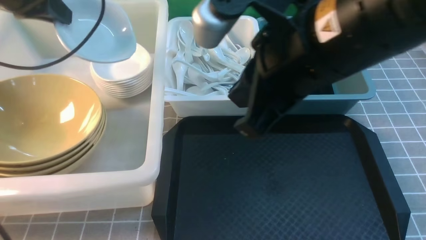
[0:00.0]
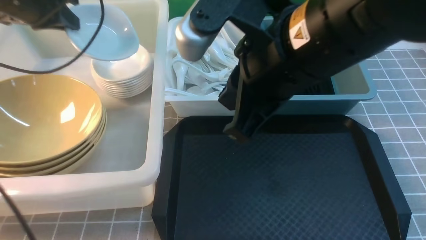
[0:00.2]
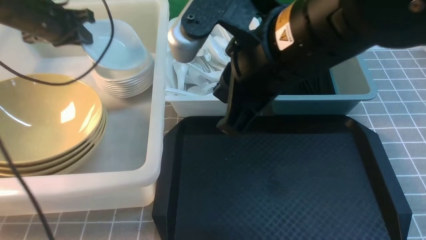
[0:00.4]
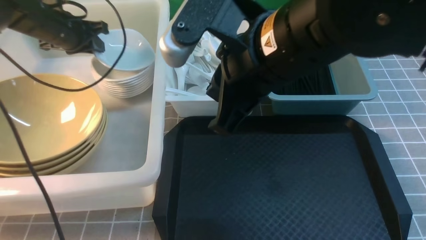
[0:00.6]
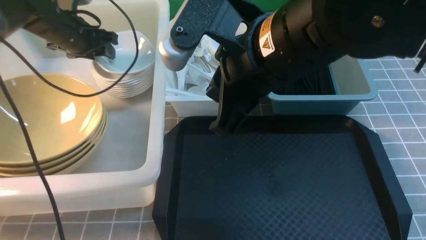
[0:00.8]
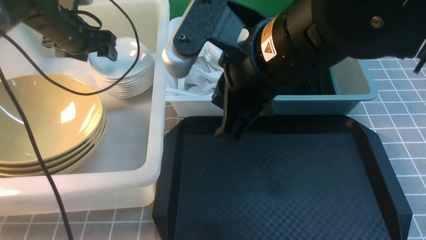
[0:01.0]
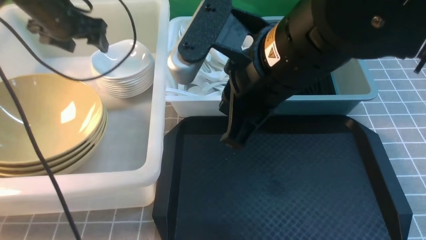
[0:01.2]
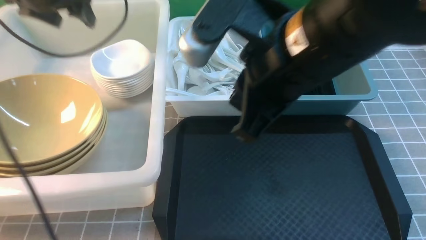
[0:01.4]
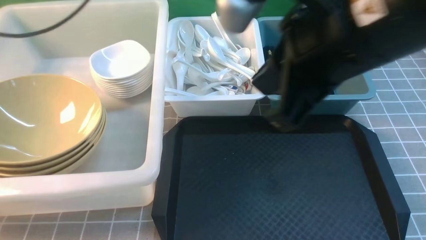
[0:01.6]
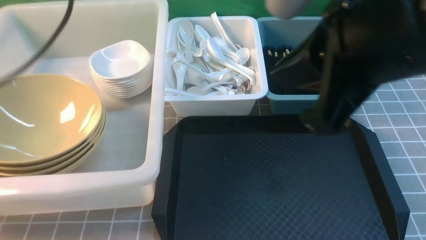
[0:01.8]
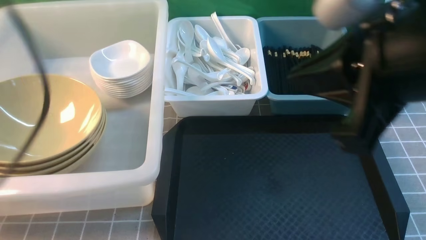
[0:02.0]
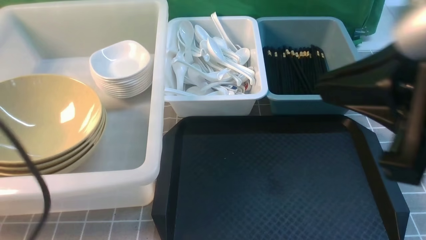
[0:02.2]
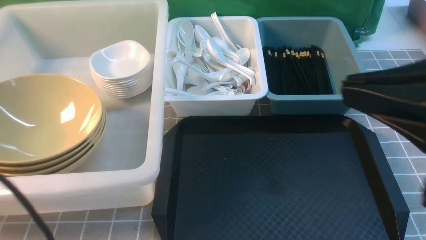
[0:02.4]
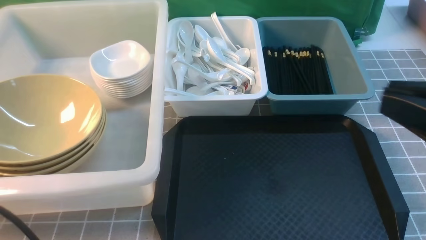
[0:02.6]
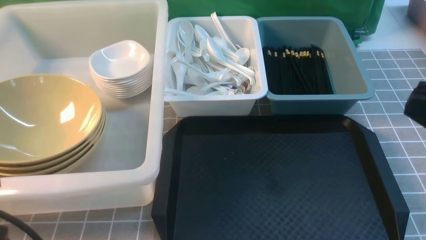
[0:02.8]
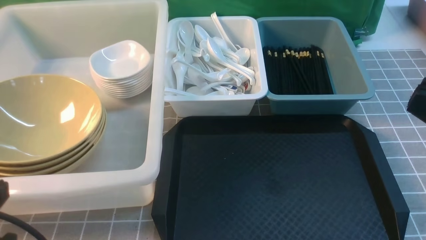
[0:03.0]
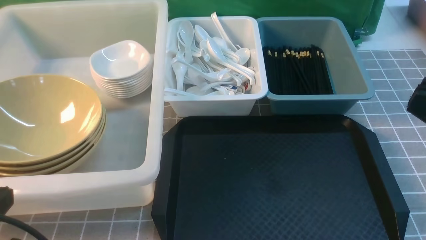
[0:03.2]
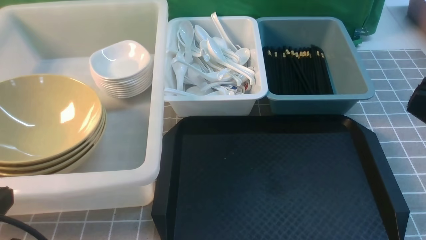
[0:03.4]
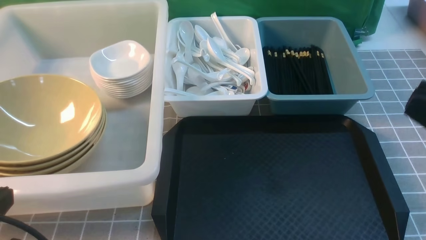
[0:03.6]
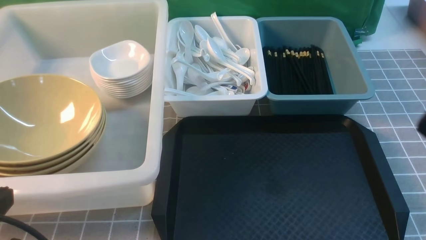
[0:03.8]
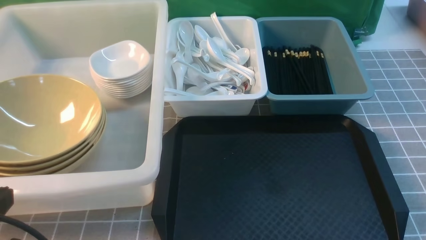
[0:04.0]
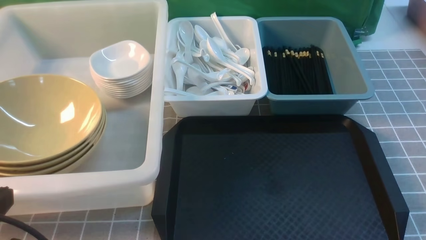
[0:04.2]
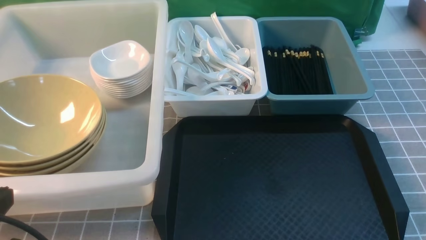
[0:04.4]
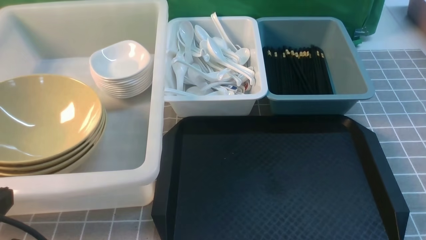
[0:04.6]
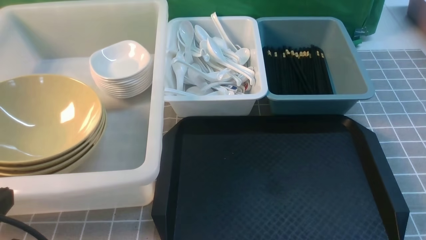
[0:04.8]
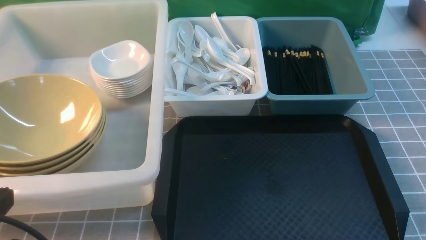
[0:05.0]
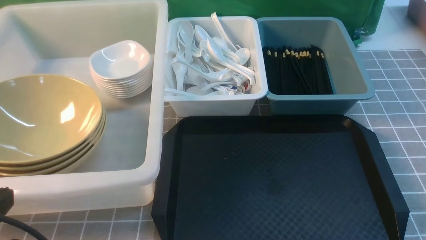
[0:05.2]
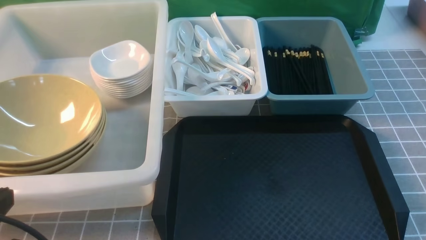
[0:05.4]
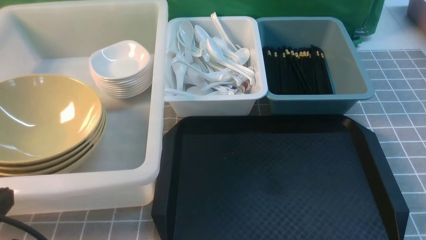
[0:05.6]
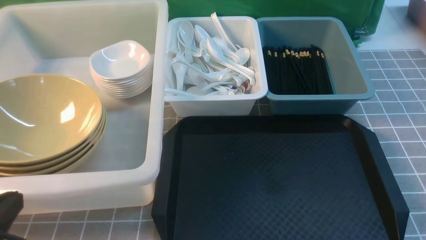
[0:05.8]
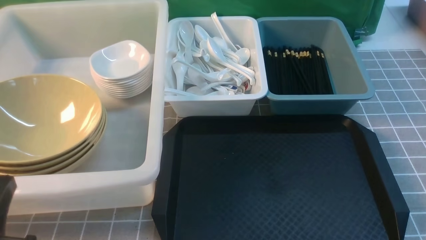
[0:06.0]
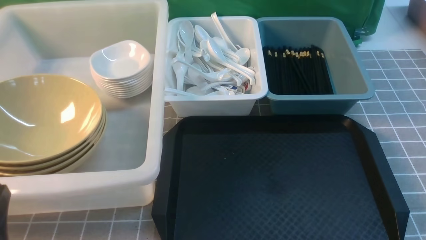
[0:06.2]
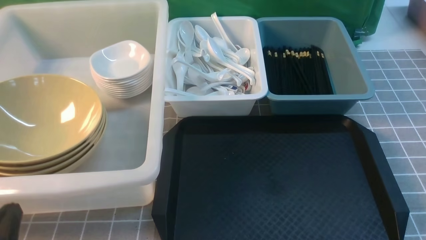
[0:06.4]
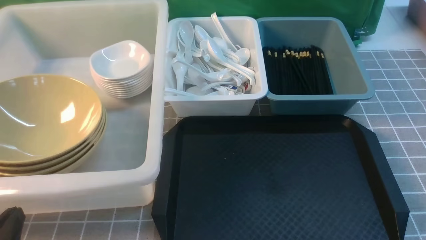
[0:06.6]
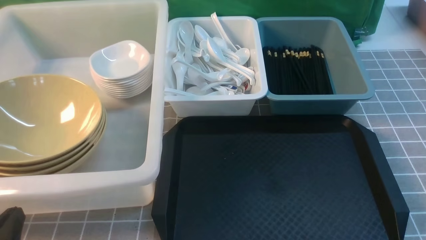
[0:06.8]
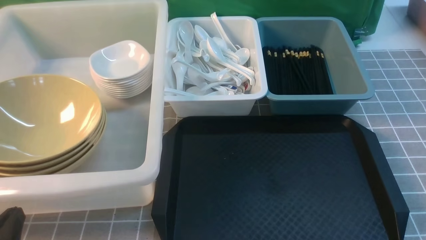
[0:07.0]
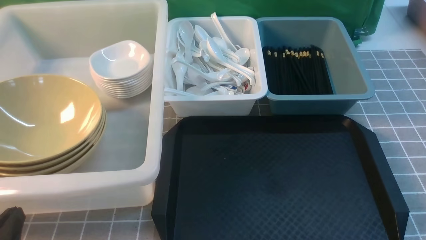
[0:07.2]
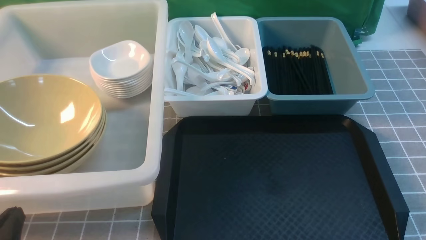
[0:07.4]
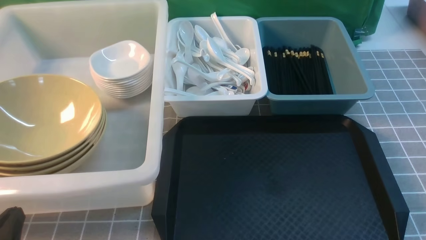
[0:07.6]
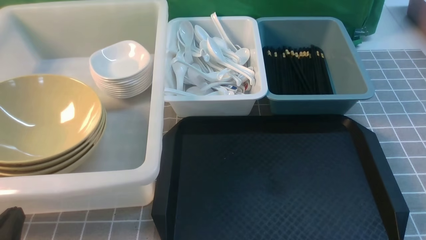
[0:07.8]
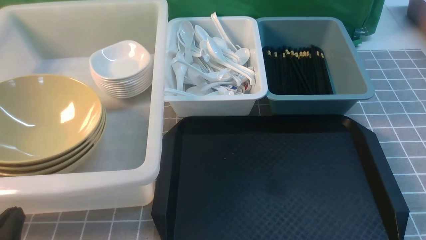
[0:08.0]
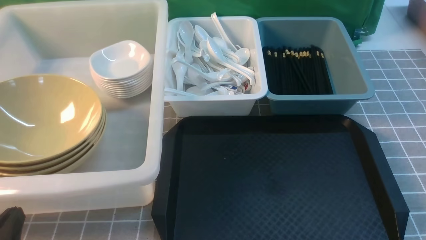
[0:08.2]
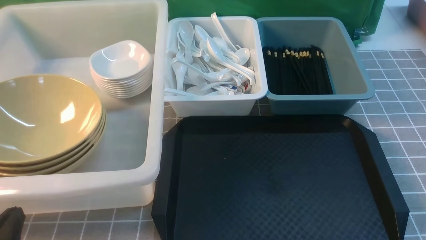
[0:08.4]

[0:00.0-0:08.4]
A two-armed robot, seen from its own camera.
Task of the whole recording: on grey table put chopsticks spoon bowls plates into blue grey white boxes.
Step, 0:00.0 to 0:01.2: use the left arm to put the plate into the large storage box on the left.
0:00.0 to 0:01.4: The left gripper travels downward and back again, some 10 cm each way, and opens its fingers.
0:01.4 to 0:02.8: The left gripper is displaced backward by about 35 cm, and closes up. The right gripper moves to the right and backward, about 20 cm.
0:02.8 to 0:04.2: The right gripper shifts approximately 15 cm downward and to the right.
0:05.6 to 0:07.0: The left gripper shifts about 10 cm downward.
0:07.0 to 0:08.4: Both grippers stay put.

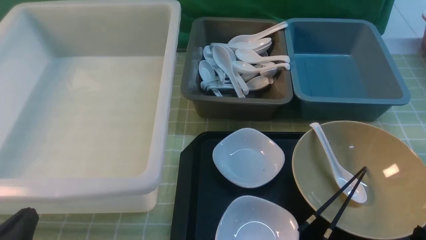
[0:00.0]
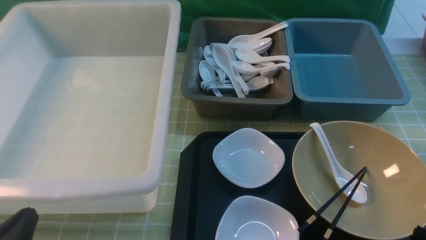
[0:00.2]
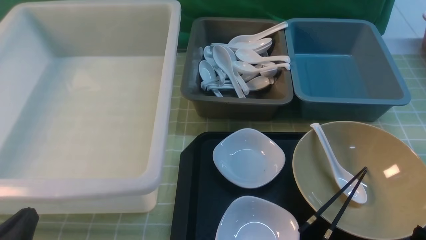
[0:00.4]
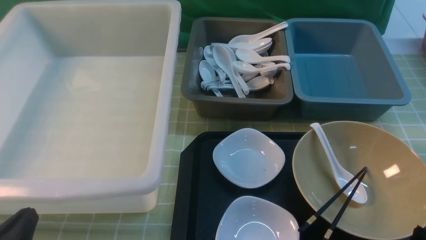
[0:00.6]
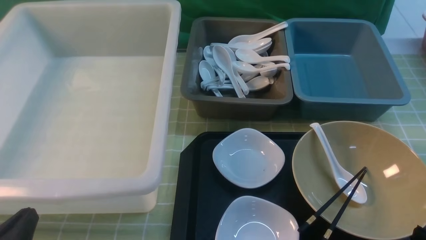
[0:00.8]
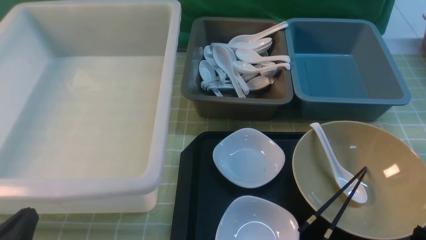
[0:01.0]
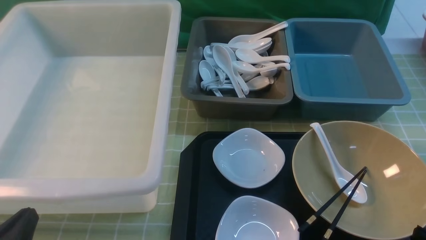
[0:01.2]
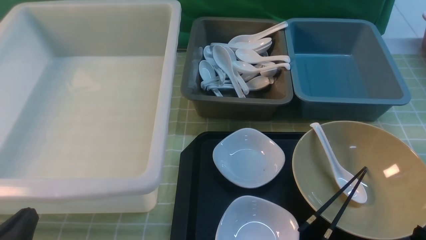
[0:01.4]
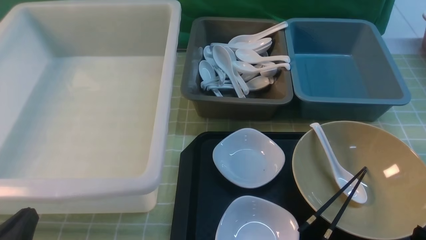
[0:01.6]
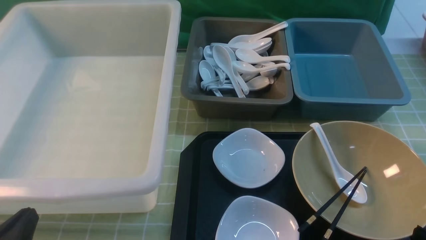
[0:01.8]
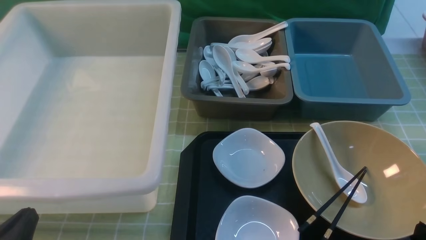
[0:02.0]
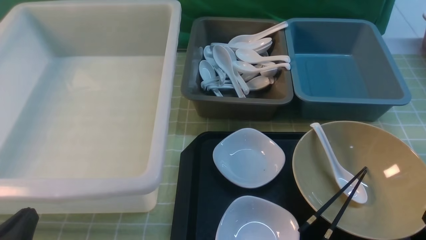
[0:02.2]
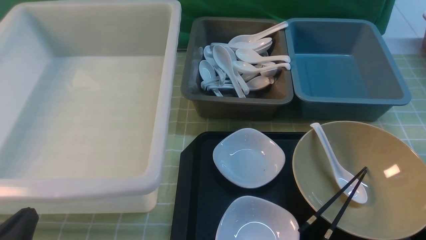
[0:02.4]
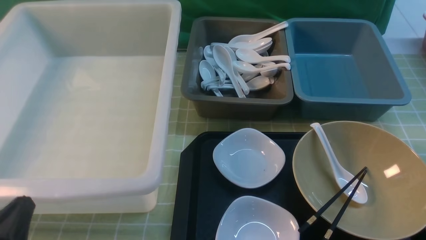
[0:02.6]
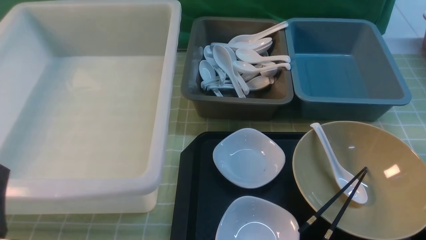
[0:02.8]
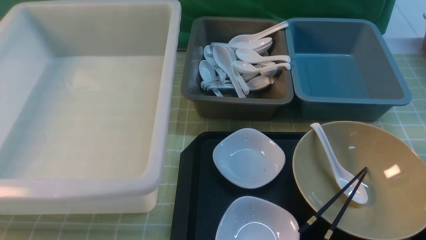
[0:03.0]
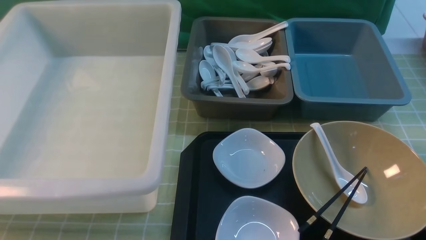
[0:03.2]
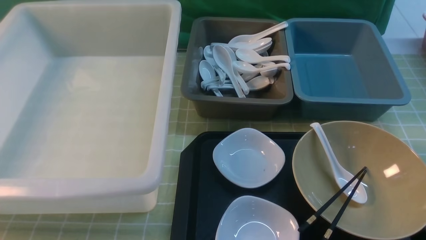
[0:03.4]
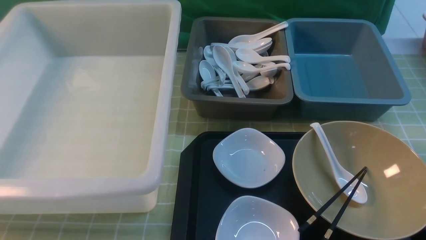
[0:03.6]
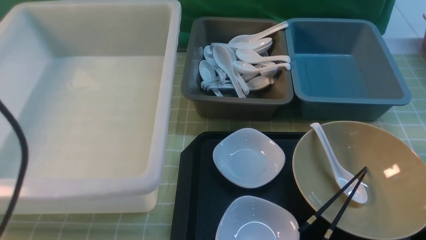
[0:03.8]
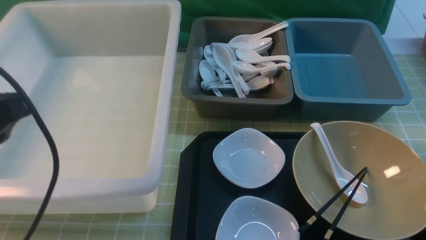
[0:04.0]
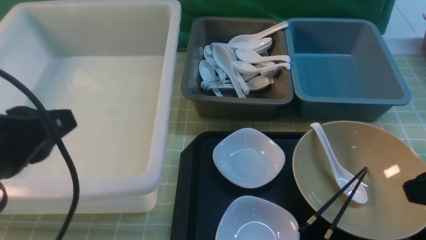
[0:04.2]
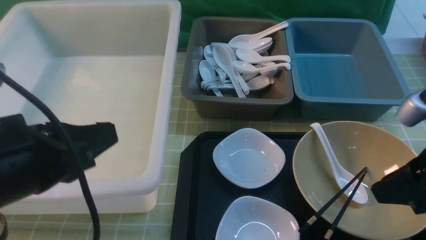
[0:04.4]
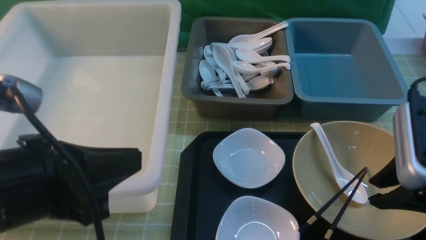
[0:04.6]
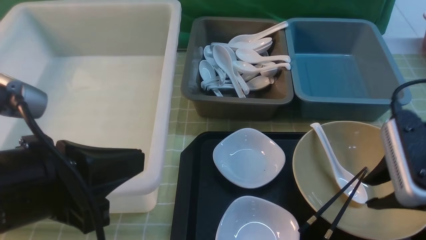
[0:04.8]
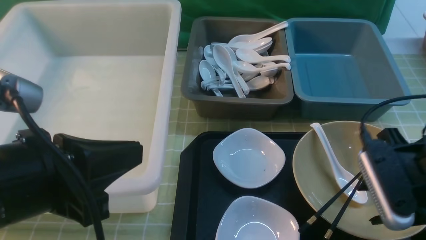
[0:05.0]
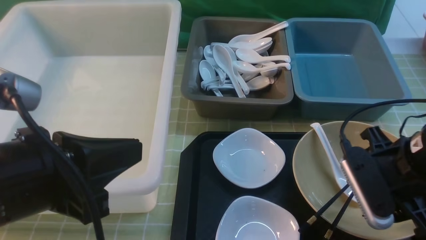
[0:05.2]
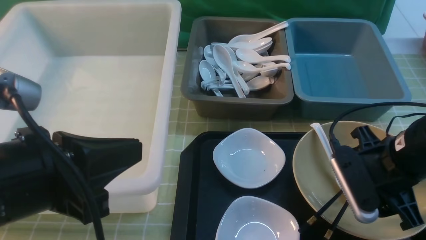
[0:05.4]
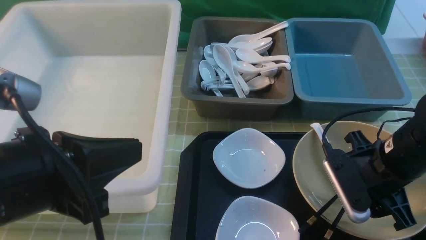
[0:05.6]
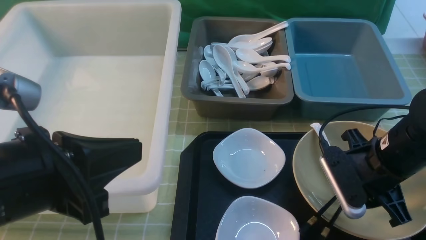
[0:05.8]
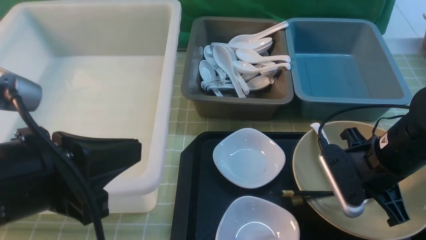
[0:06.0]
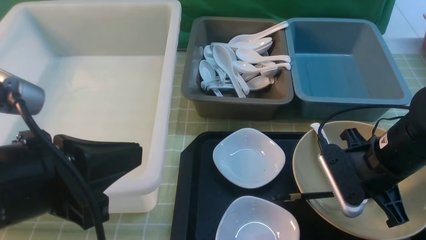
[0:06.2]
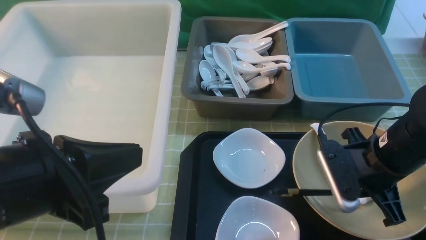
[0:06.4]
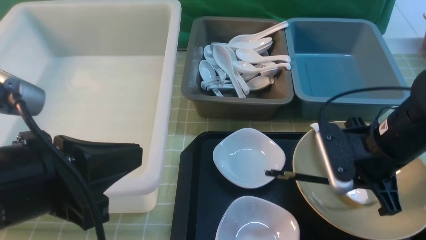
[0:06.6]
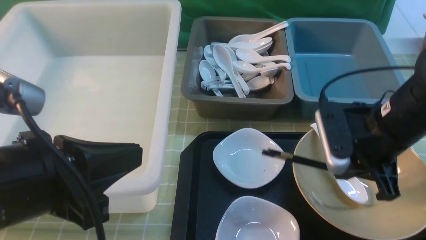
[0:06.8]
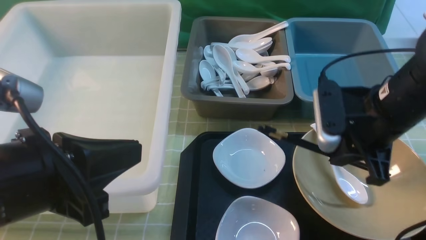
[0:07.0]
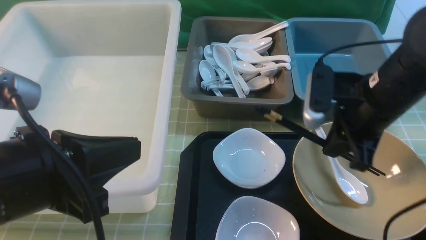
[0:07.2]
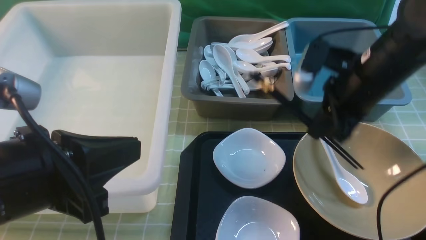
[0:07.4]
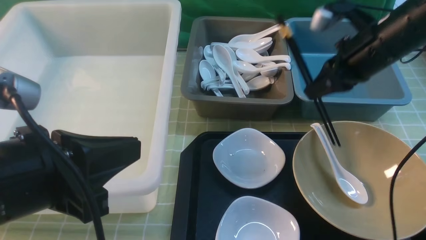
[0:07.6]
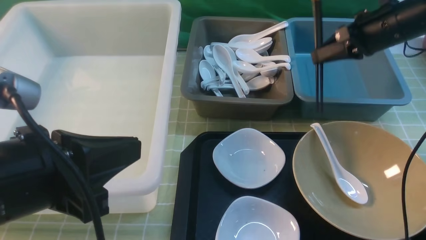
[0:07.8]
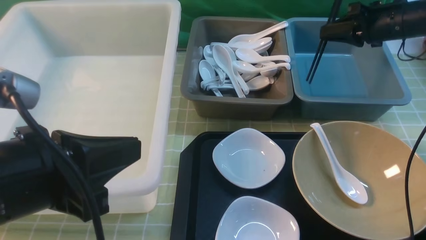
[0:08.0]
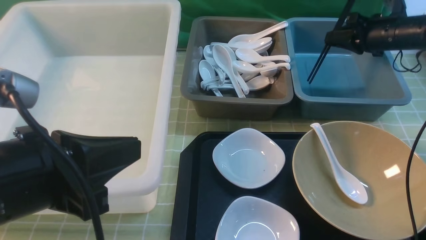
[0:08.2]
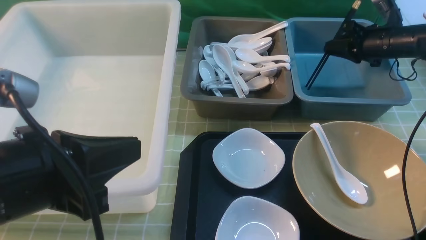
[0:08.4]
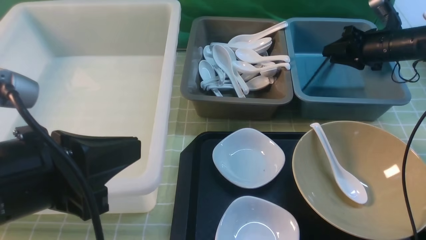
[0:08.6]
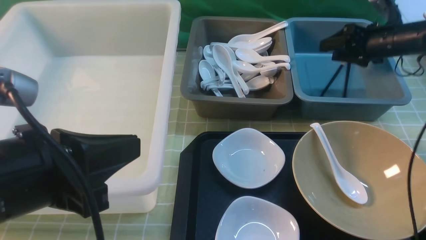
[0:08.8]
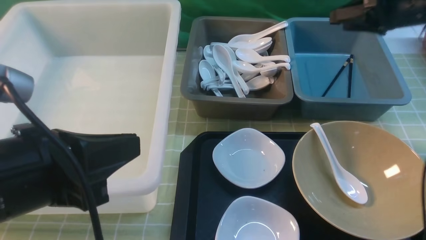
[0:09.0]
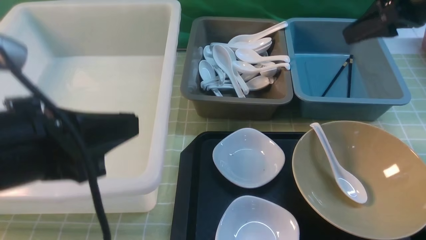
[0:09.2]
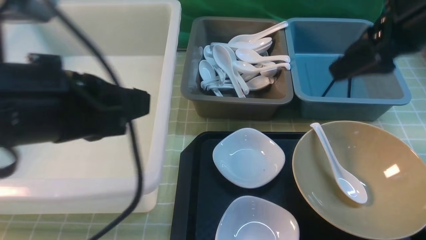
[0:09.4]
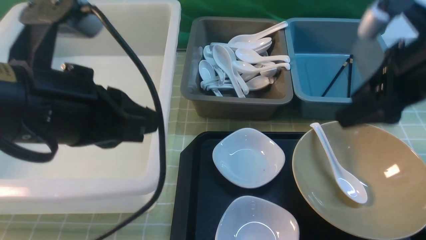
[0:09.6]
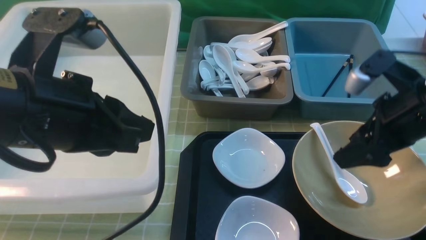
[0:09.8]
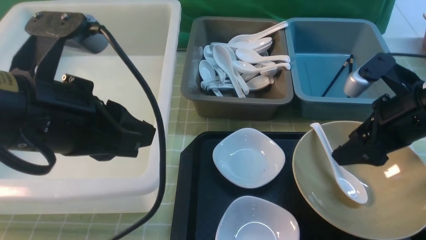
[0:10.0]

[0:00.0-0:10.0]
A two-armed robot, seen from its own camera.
Task of the whole recording: on green table put chopsticks spoon bowls plates into blue grey white boxes.
Step, 0:00.0 to 0:07.2: use the right arm to grab the chopsticks.
Step, 0:07.4 to 0:09.0: use the right arm to put the chopsticks into the small storage box on the right.
0:00.0 to 0:01.4: The two grippers keep their place.
0:01.4 to 0:02.8: The left gripper ends up approximately 5 cm from where it was.
0:02.8 to 0:04.2: The left gripper travels upward and forward by roughly 15 cm; the right gripper travels forward and upward by some 15 cm.
0:04.2 to 0:05.8: The right gripper moves downward, forward and to the left, approximately 15 cm, and opens, then closes once more.
0:05.8 to 0:07.2: The right gripper goes approximately 10 cm upward and forward, and closes its fingers.
0:07.2 to 0:08.6: The right gripper goes about 25 cm forward and to the right, and opens up.
0:08.6 to 0:10.0: The right gripper shifts roughly 25 cm backward and to the left, and opens its fingers, while the left gripper shifts about 5 cm forward.
